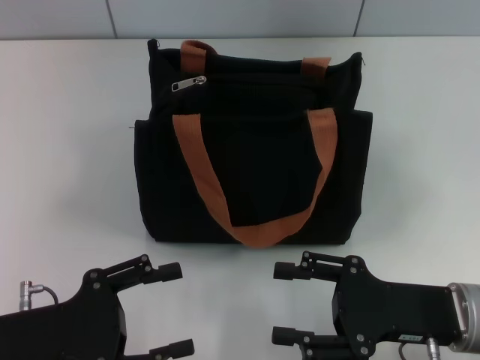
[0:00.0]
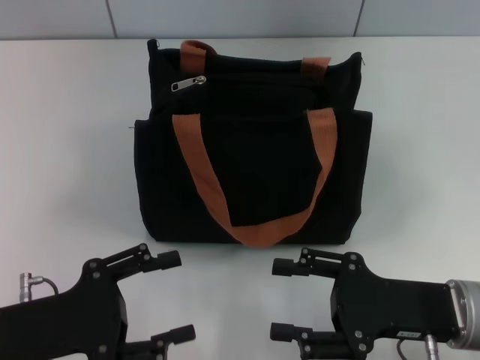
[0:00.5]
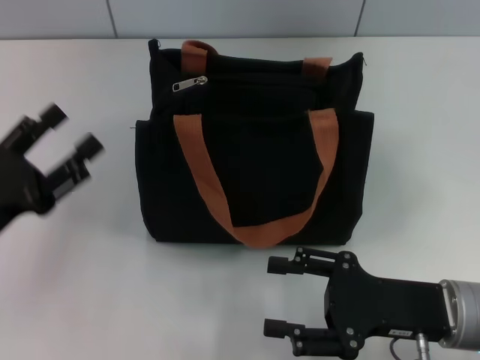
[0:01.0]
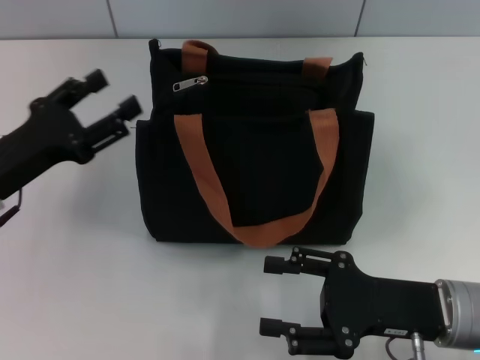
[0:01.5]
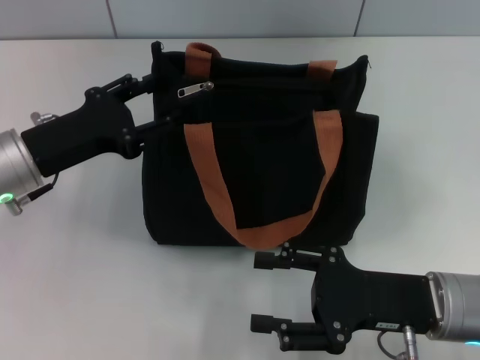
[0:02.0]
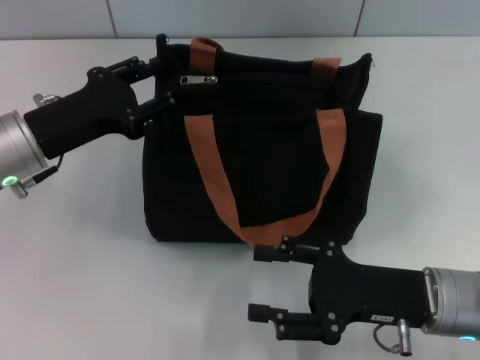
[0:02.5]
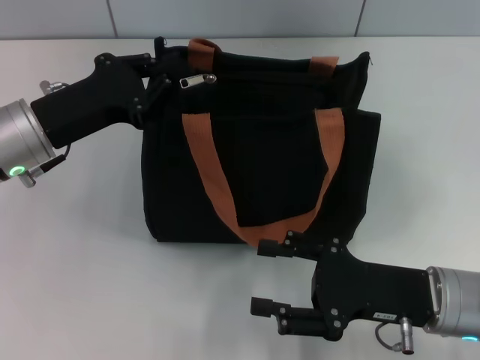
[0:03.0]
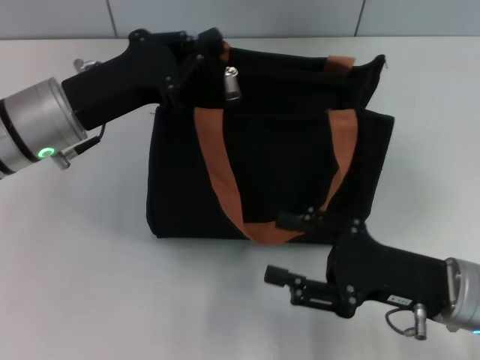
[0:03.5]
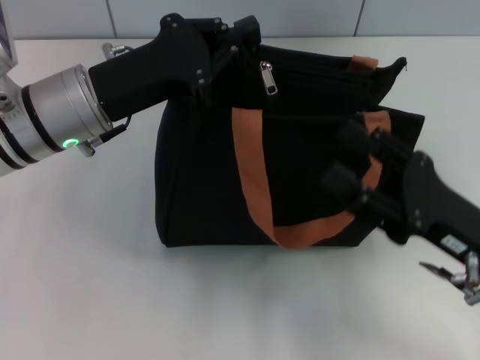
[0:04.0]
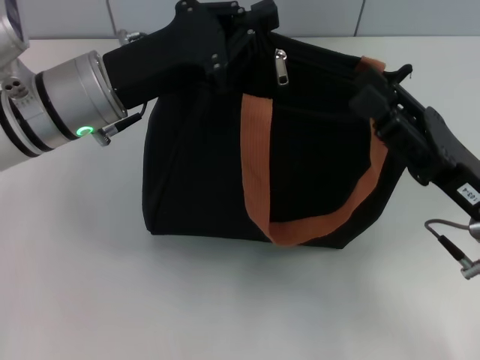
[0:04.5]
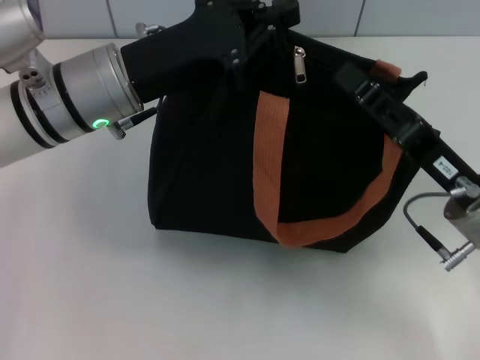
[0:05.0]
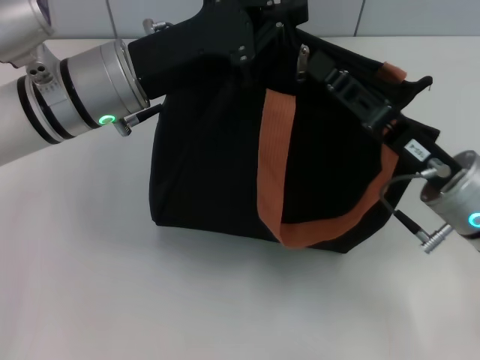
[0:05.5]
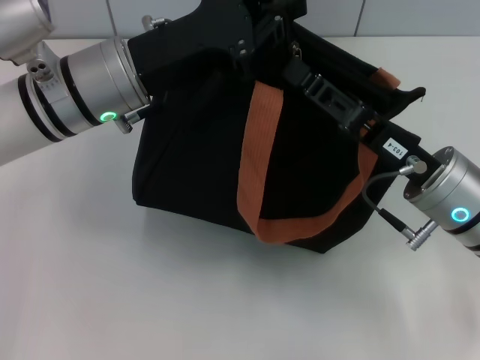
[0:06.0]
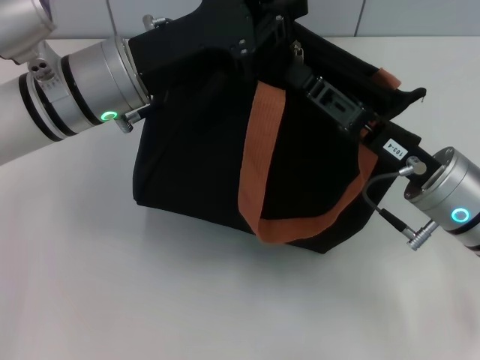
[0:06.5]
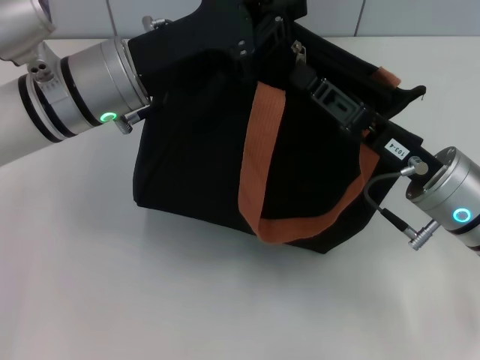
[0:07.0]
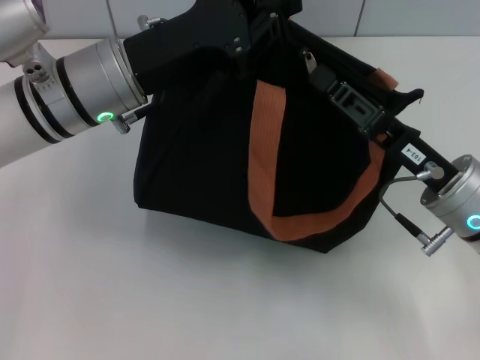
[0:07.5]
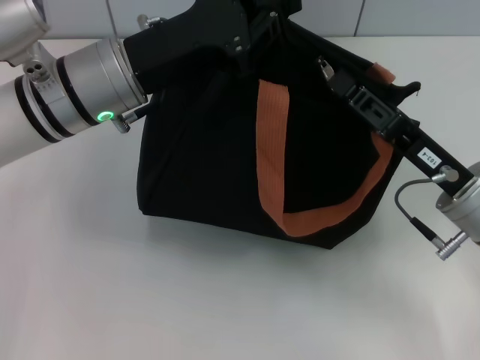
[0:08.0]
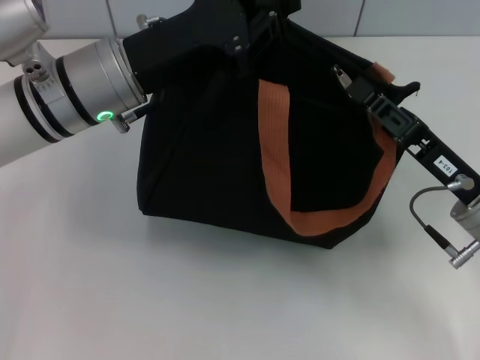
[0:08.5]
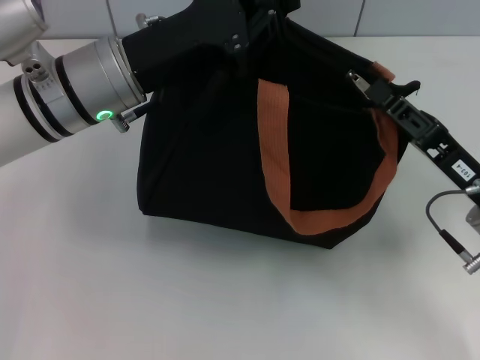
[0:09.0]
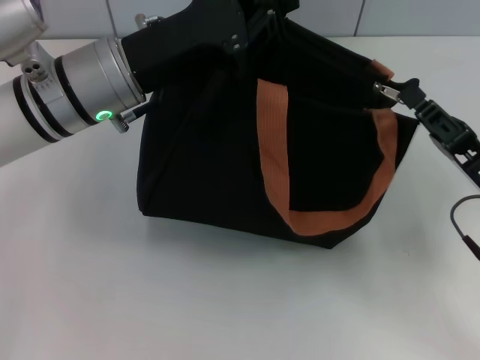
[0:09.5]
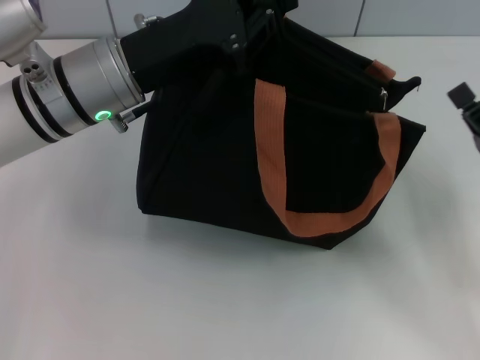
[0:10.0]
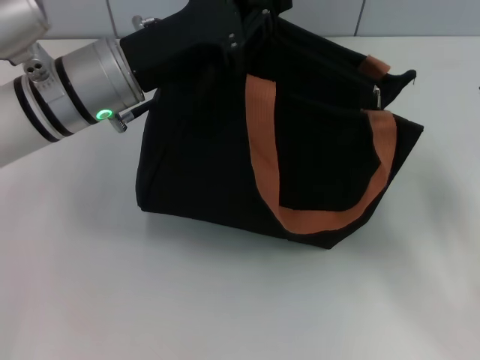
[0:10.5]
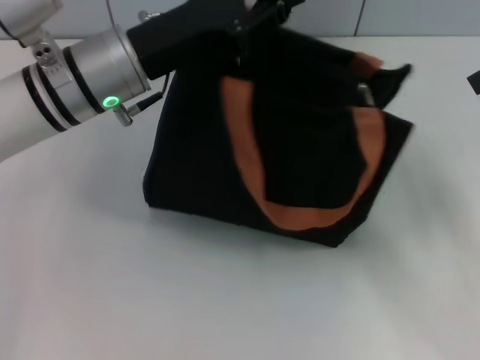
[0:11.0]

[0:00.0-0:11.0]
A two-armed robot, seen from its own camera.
Step, 0:00.0 to 0:09.5: Pull up the zipper with your right hand.
0:00.0 to 0:02.0: The left gripper goes some 15 cm forward.
0:02.0 to 0:03.5: The left gripper changes place by some 5 cm, and closes its fingers.
0:03.5 to 0:05.5: The left gripper is displaced to the right by some 5 cm. The right gripper is displaced forward by about 5 cm, and closes its fingers.
0:05.5 to 0:07.5: The right gripper closes.
0:07.5 to 0:09.0: The grippers make only small movements.
0:09.0 to 0:11.0: The right gripper changes place by roughly 5 cm, and opens up.

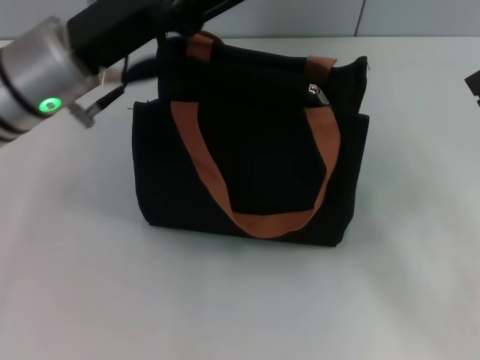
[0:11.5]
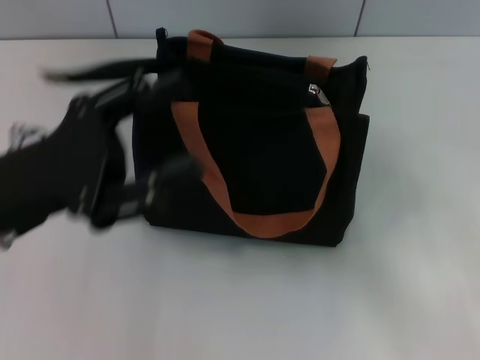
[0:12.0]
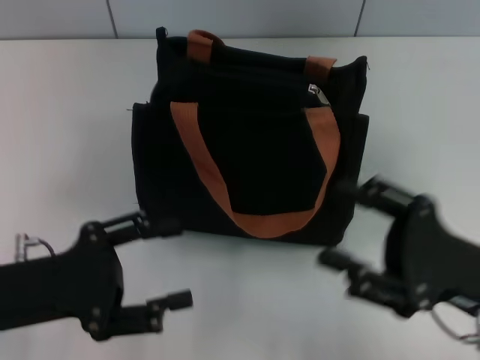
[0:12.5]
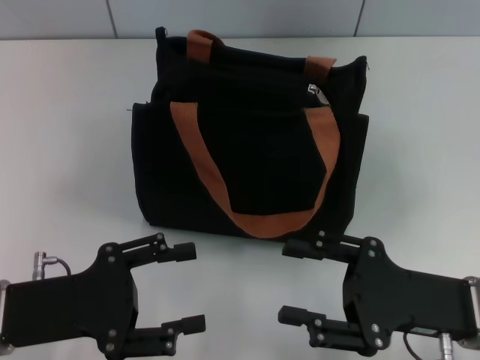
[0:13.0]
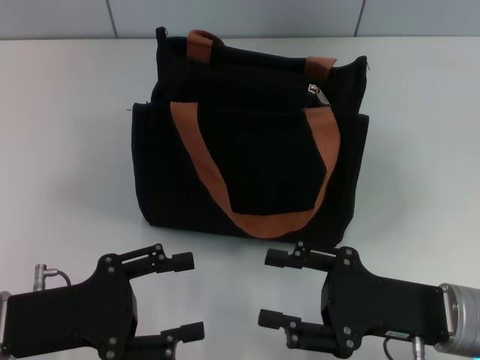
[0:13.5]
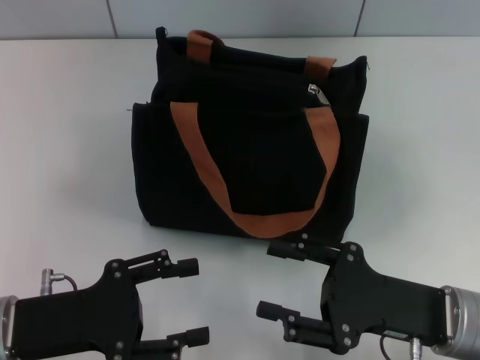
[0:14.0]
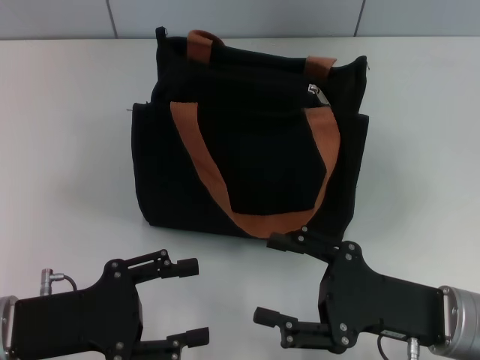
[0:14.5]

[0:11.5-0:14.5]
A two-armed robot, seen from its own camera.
0:11.5 to 0:13.0: The right gripper goes about 5 cm to the left. The left gripper moves backward, downward and to the left, roughly 20 cm.
0:13.0 to 0:14.5: The grippers move only a little.
